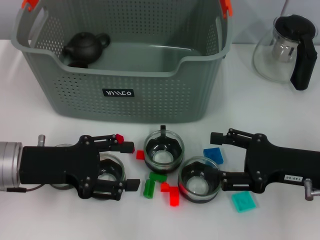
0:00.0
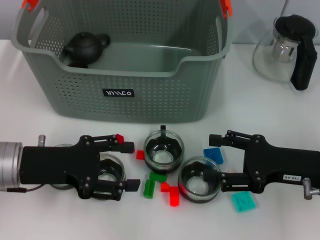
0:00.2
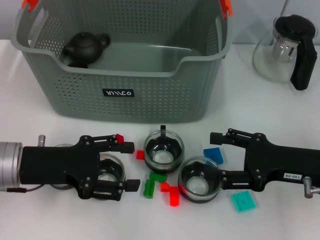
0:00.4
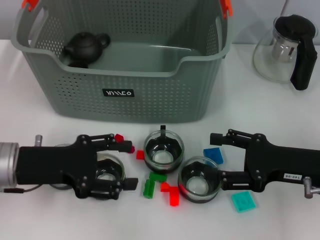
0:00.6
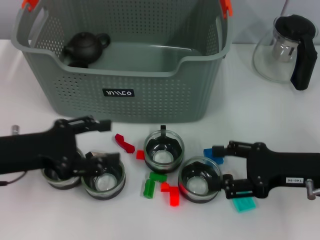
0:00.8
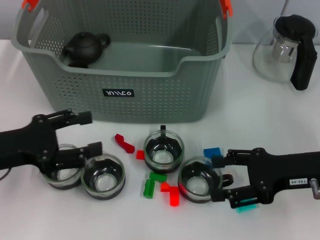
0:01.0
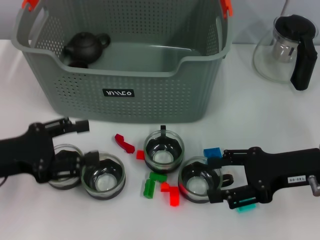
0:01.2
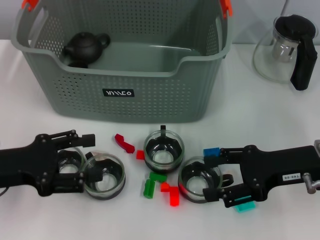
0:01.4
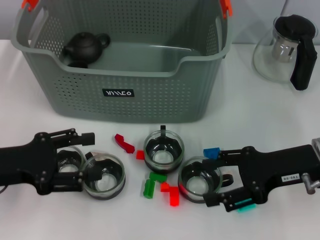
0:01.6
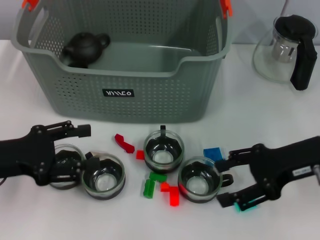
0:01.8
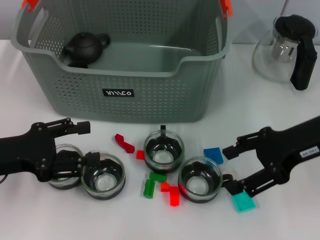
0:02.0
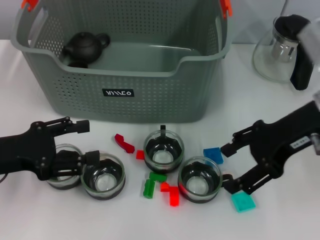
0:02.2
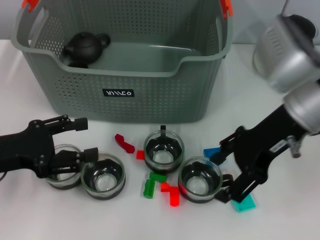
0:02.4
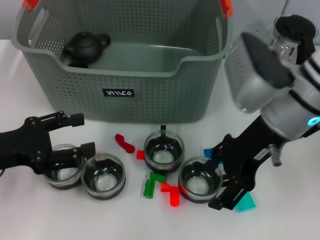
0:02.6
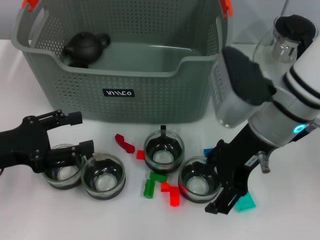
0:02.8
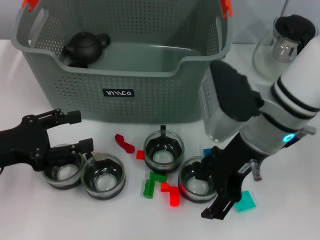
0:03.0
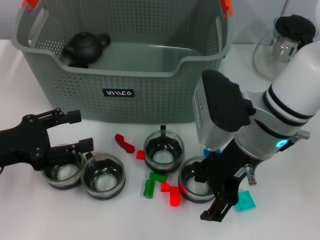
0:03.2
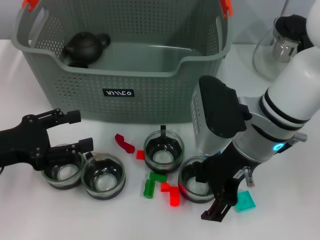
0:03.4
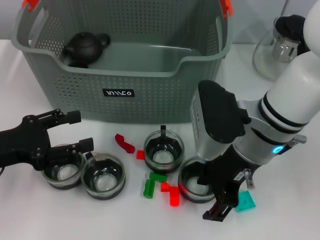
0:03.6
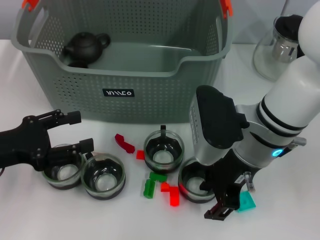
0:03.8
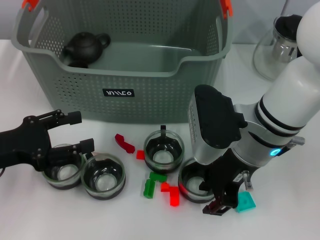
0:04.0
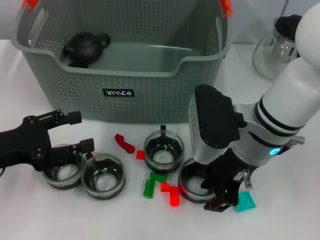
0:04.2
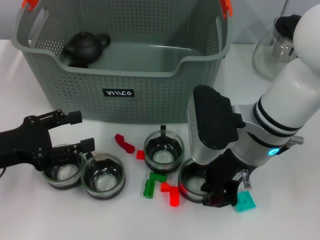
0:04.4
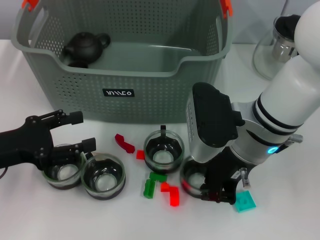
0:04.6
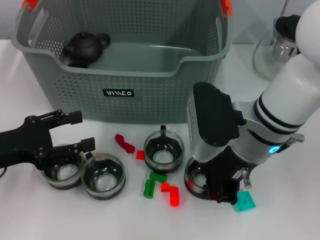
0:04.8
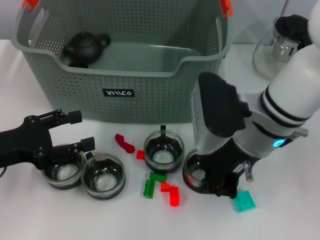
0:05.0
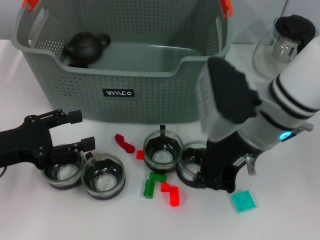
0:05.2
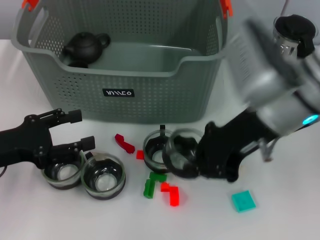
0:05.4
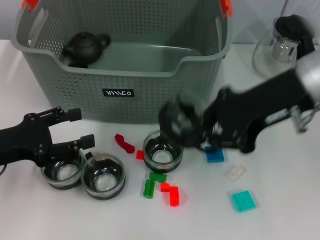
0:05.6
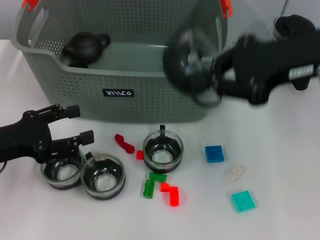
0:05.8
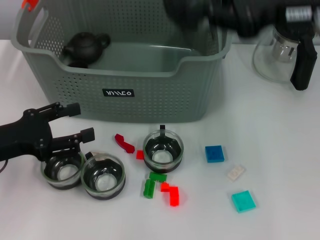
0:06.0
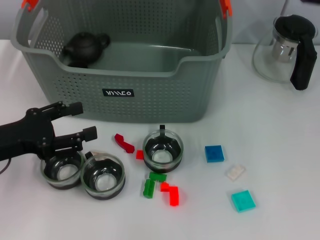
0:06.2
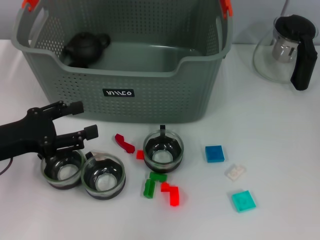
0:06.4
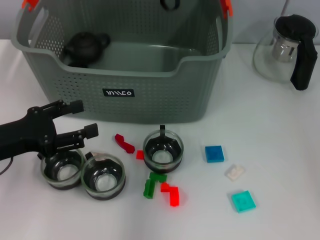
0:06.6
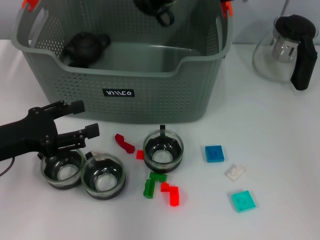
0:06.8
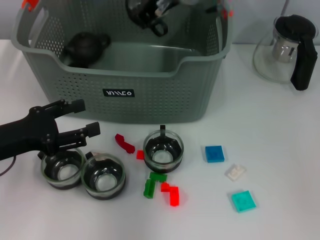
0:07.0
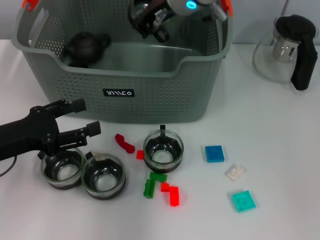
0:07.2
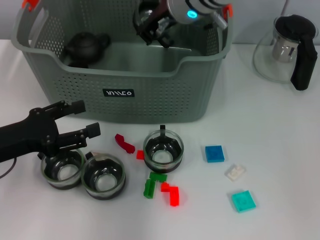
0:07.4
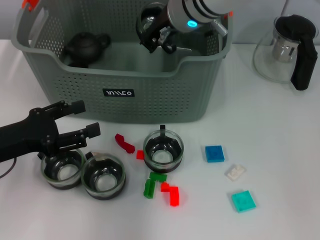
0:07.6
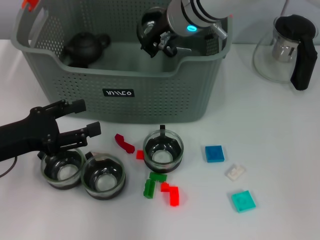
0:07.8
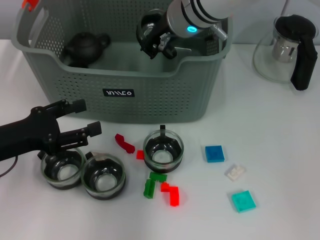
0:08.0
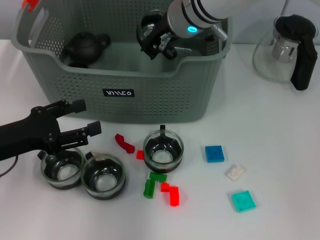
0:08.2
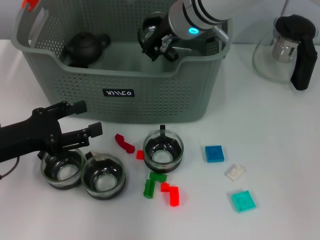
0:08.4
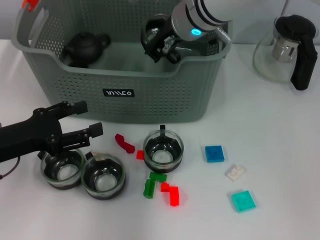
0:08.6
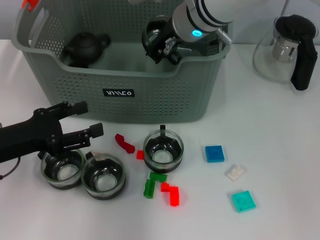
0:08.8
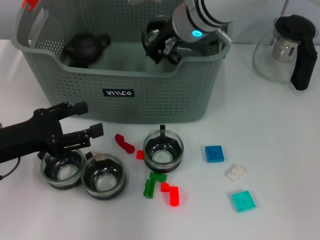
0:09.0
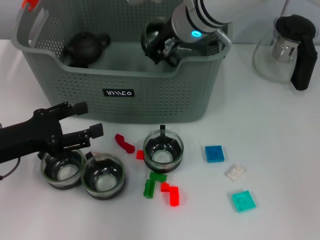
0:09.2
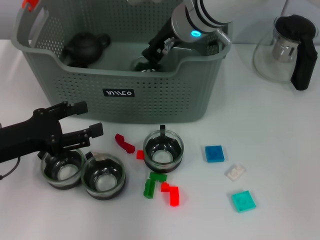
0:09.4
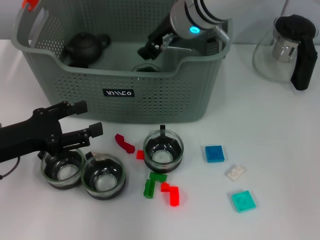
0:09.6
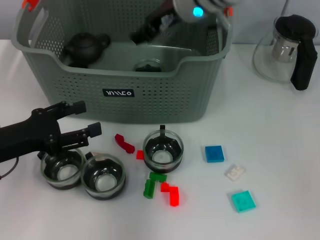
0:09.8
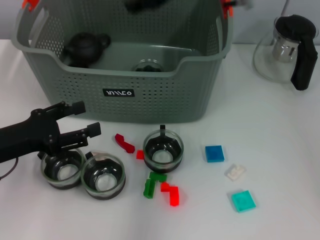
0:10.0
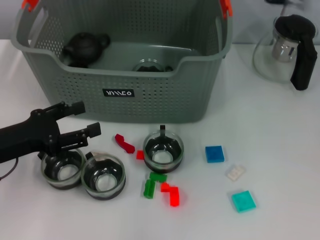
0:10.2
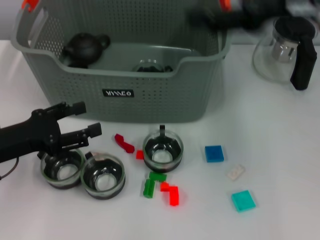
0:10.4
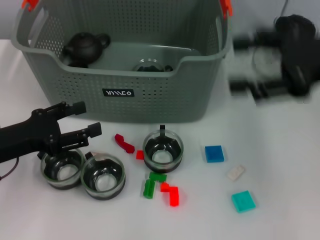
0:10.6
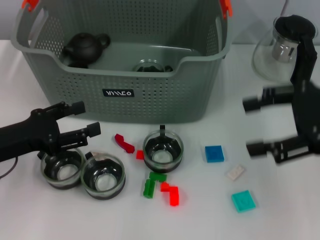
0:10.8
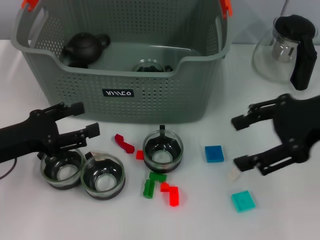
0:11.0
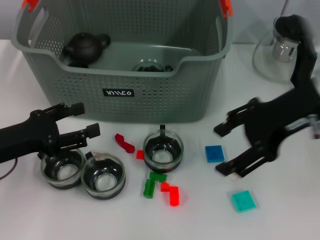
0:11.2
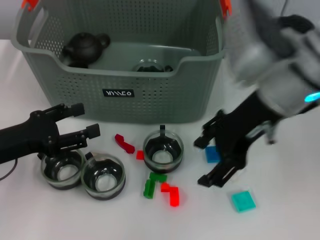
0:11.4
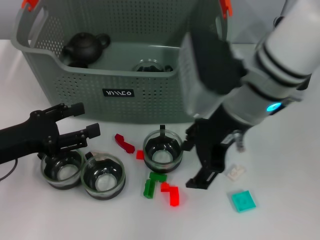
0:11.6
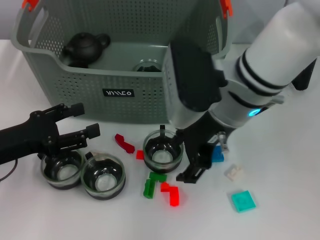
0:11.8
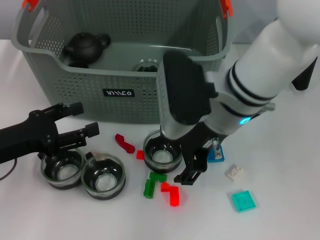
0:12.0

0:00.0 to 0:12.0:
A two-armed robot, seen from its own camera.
Task of the whole recording: pick up the teacup on the table and place it into the storage bin, pick up the block on the table and place it into the storage bin.
Step, 0:00.0 to 0:04.6: Grasp the cup with right gripper.
Step, 0:04.8 to 0:09.4: Place the cup in the storage box with right gripper.
0:00.0 to 0:01.6: The left gripper changes place by about 5 cm.
0:01.6 to 0:03.0: The right gripper travels to the left and upward by about 15 cm.
0:03.0 to 0:04.4: The right gripper closes its fingers.
0:04.4 to 0:06.0: The right gripper heads upward and to the right, covering some 15 cm, and closes.
0:06.0 to 0:07.6: The right gripper travels to the left, forward and downward by about 20 cm.
0:07.6 to 0:09.0: Neither gripper changes place.
0:09.0 to 0:10.4: The right gripper goes about 20 cm to the right, backward and upward, and opens up.
0:10.4 to 0:12.0: The right gripper travels to the left and downward by approximately 20 cm.

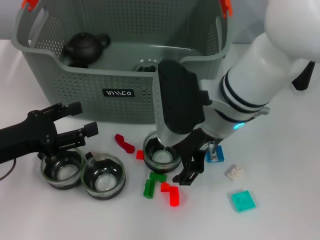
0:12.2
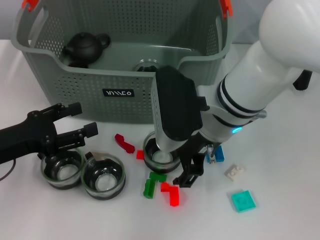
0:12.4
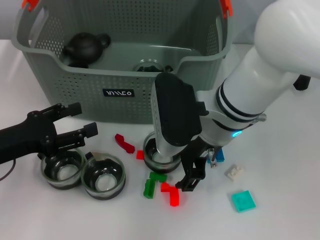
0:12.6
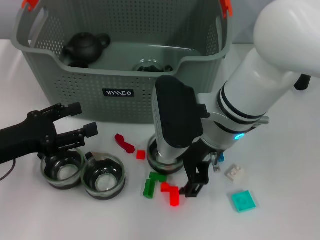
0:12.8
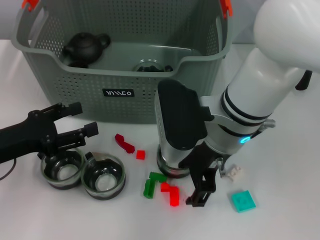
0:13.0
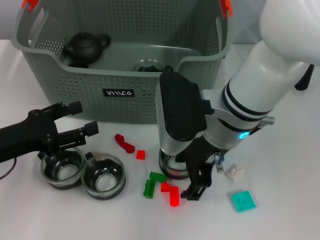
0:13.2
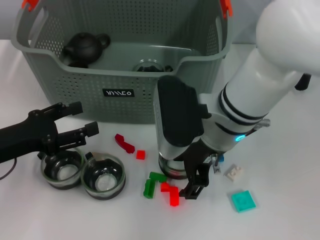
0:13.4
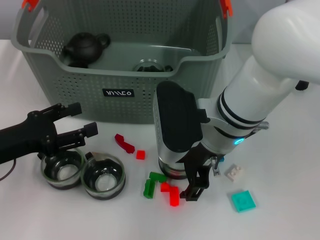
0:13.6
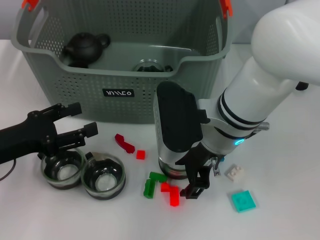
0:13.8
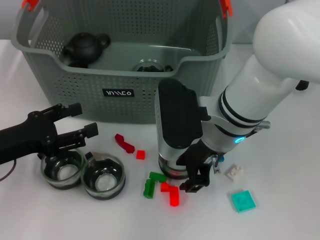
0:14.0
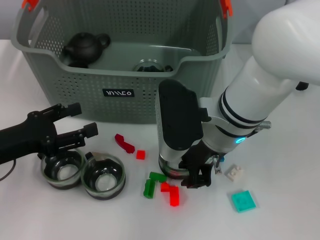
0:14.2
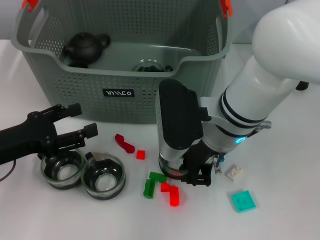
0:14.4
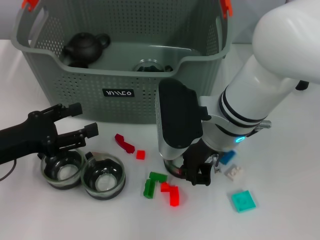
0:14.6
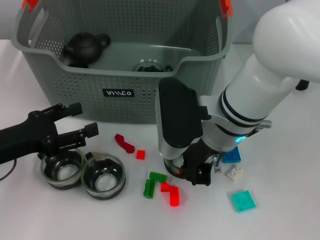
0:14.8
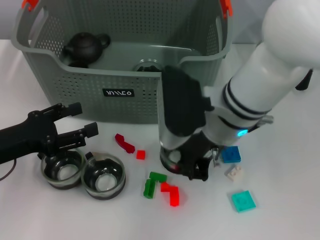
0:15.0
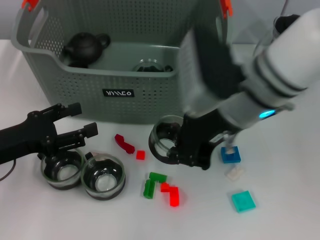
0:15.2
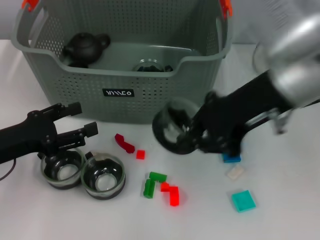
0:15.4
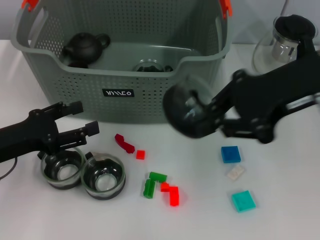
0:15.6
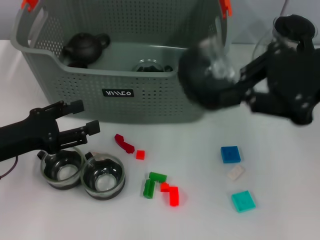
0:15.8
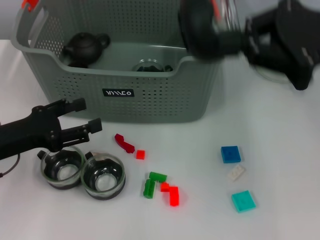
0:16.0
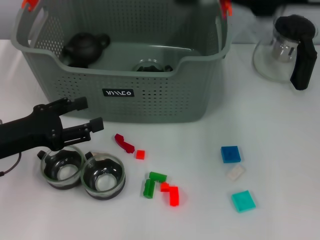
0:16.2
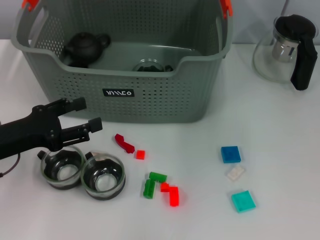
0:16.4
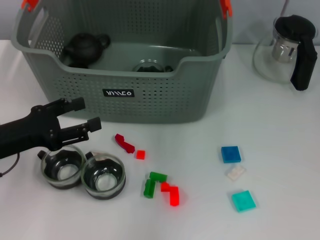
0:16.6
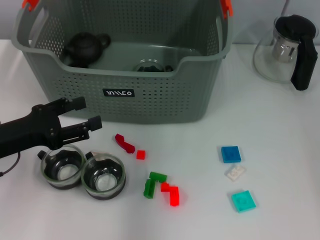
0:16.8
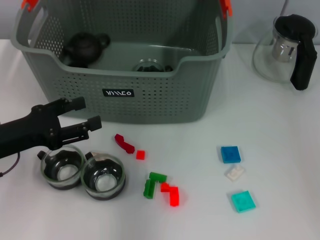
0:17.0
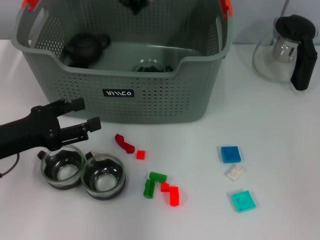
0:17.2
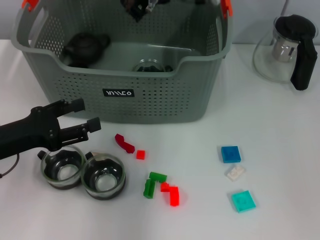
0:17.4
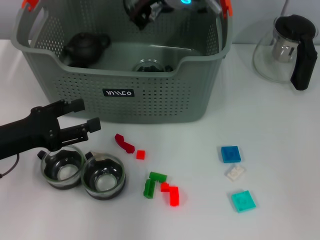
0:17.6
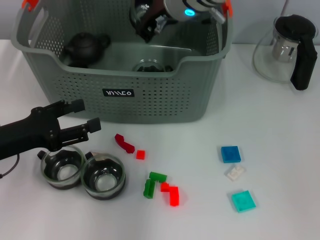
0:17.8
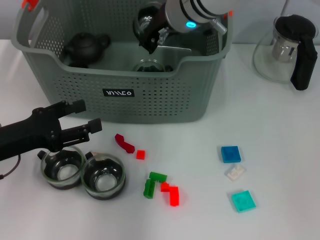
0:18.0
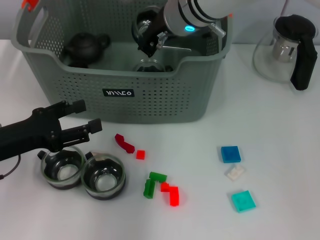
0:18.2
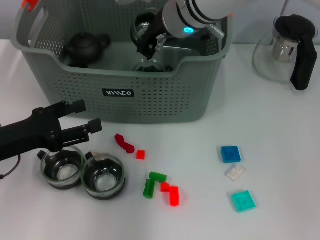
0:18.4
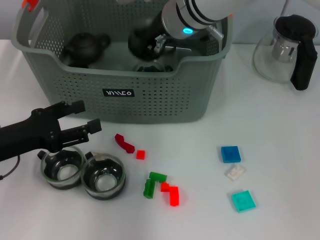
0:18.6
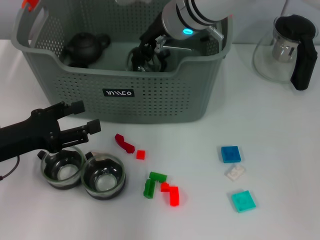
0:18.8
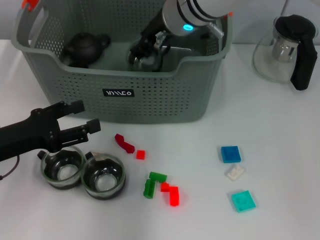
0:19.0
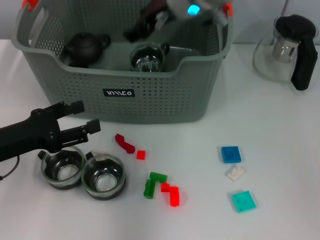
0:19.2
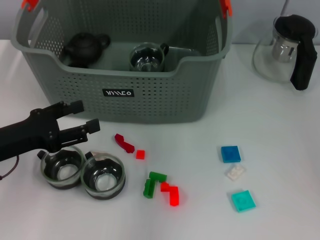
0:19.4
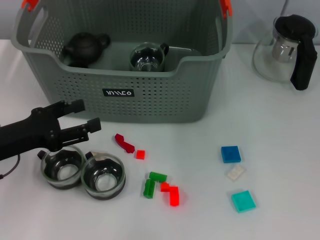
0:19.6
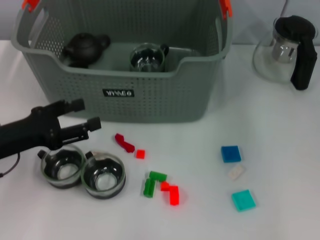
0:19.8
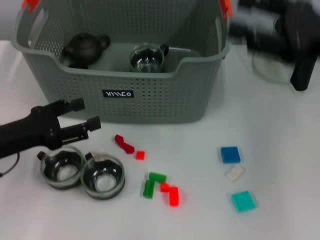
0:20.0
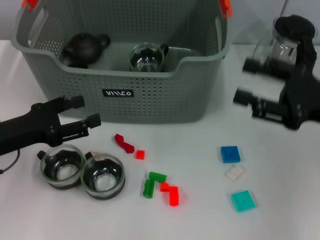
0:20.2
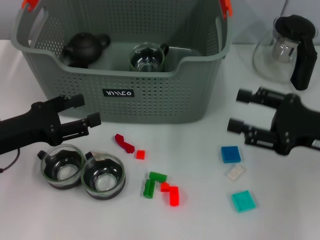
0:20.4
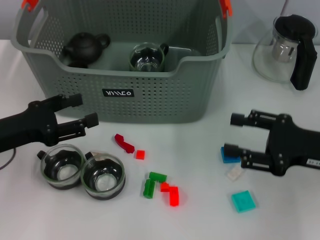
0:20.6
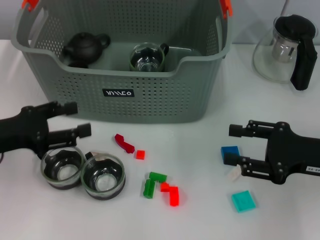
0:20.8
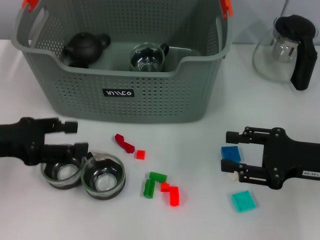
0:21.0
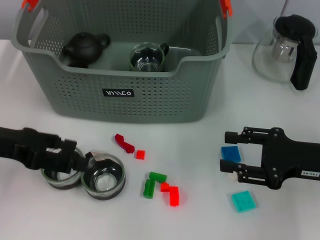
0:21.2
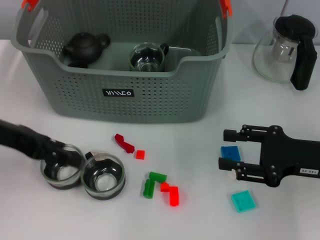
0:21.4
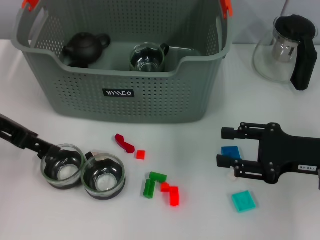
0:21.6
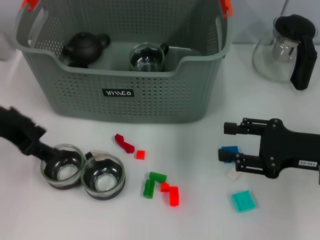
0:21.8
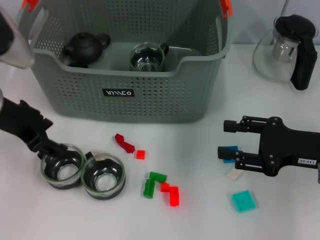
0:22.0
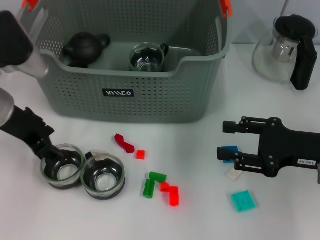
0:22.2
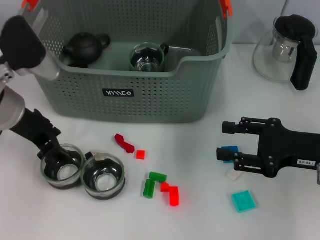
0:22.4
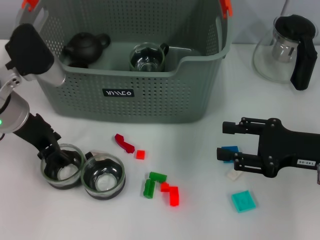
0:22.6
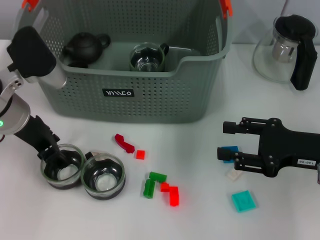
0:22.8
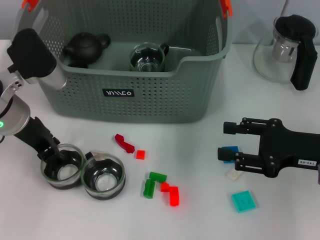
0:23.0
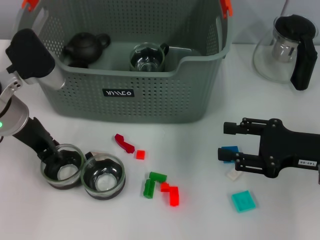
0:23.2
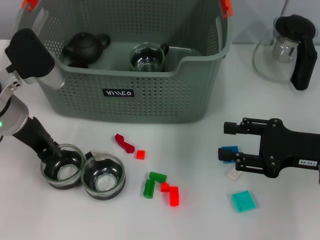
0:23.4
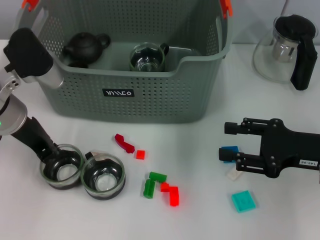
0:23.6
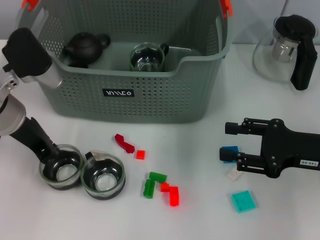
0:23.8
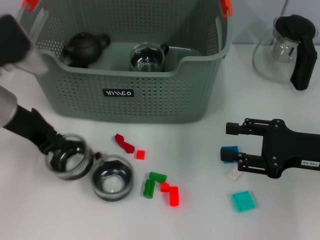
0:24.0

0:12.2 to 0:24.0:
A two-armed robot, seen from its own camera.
Task of the whole recording: pick up the teacup on the table and place it into the storage bin, pick up the block on the table and place it into the storage bin.
Step, 0:12.2 to 0:14.6: Grasp the cup with right gripper.
Step, 0:14.8 to 0:18.8: Place the cup in the storage box with right gripper.
Step, 0:19.0 to 0:23.6: Grasp the cup with left gripper.
0:12.2 to 0:13.6: The grippers stay close to where they were, moving slightly.
0:13.6 to 0:15.2: The right gripper heads upward, covering roughly 5 cm, and closes up.
0:15.2 to 0:16.6: The right gripper shifts approximately 15 cm upward and forward.
0:16.6 to 0:18.2: The right gripper travels downward and to the left by about 20 cm.
0:18.2 to 0:19.6: The right gripper travels to the right and upward by about 15 cm, and opens its fingers.
0:19.6 to 0:21.0: The left gripper shifts roughly 5 cm upward, while the right gripper travels downward, backward and to the right by about 25 cm.
0:21.0 to 0:22.6: The left gripper shifts some 10 cm to the right and forward.
0:22.6 to 0:24.0: The left gripper closes up.
